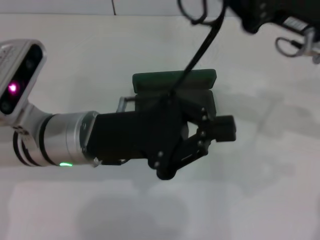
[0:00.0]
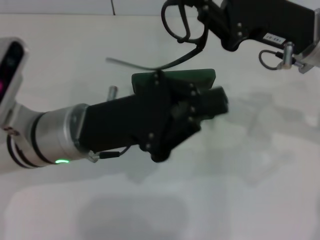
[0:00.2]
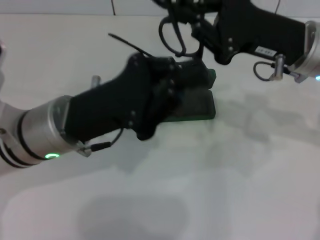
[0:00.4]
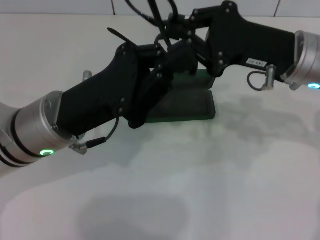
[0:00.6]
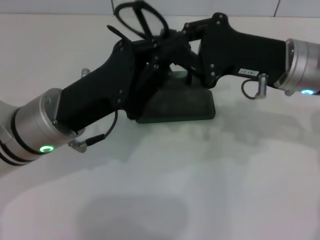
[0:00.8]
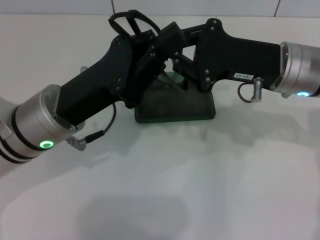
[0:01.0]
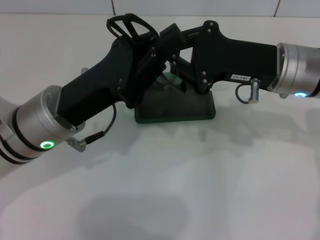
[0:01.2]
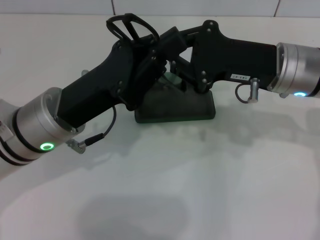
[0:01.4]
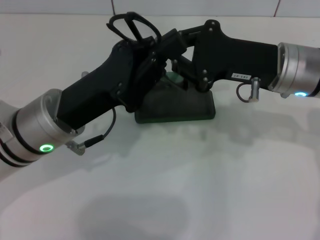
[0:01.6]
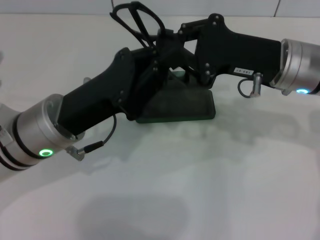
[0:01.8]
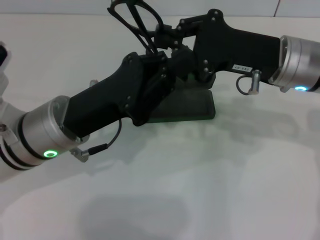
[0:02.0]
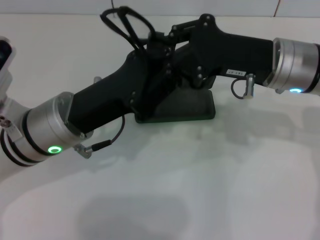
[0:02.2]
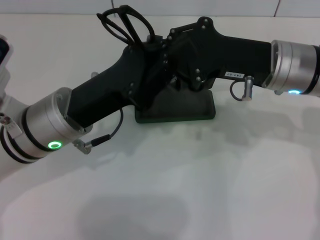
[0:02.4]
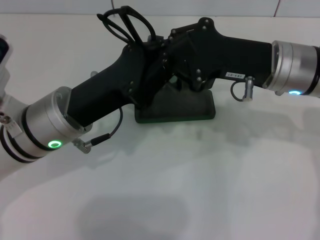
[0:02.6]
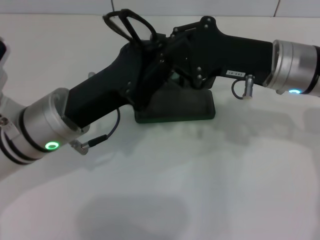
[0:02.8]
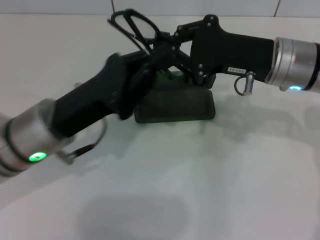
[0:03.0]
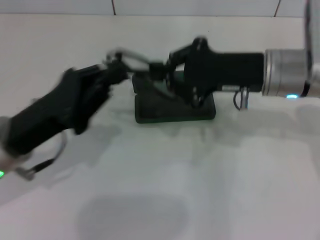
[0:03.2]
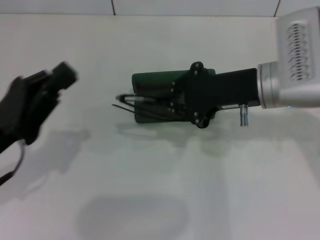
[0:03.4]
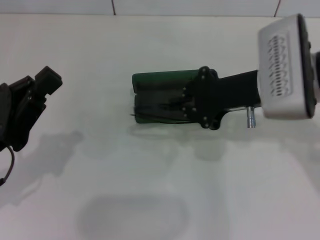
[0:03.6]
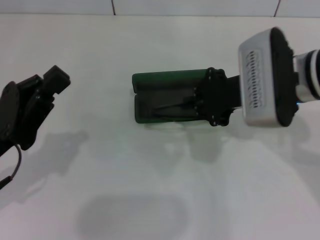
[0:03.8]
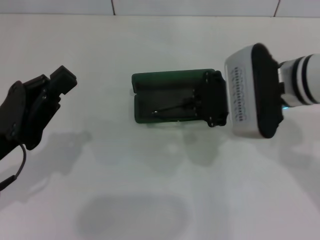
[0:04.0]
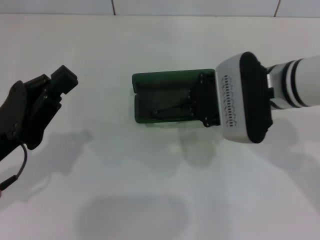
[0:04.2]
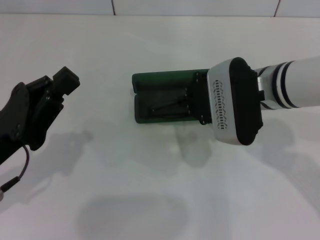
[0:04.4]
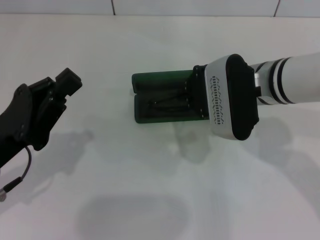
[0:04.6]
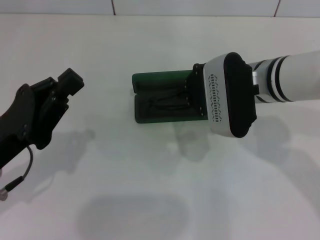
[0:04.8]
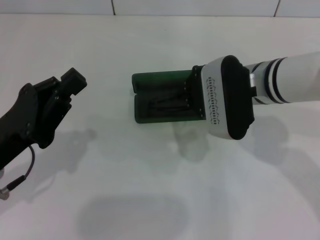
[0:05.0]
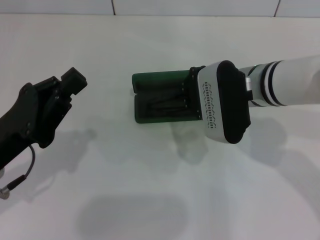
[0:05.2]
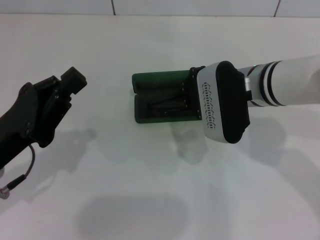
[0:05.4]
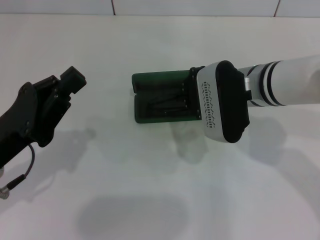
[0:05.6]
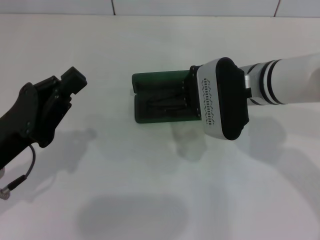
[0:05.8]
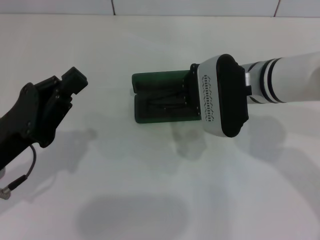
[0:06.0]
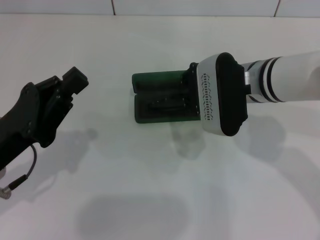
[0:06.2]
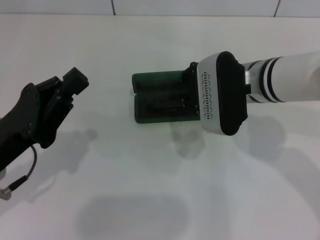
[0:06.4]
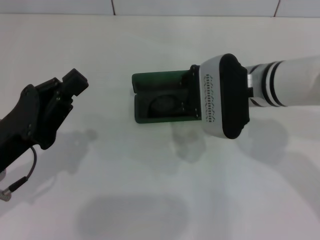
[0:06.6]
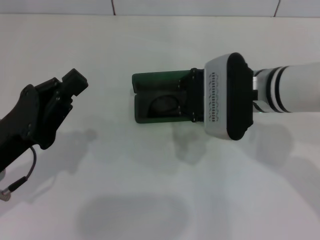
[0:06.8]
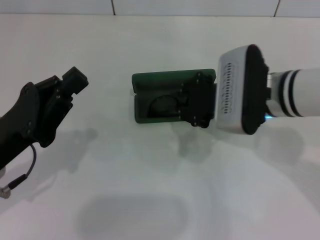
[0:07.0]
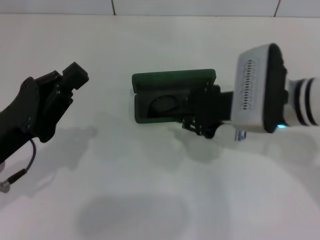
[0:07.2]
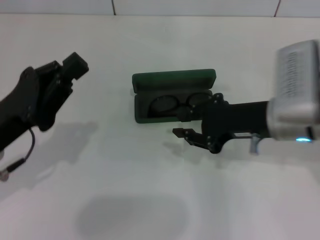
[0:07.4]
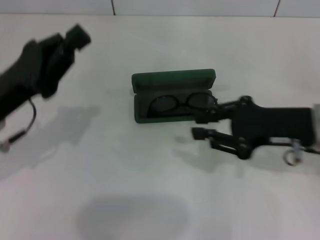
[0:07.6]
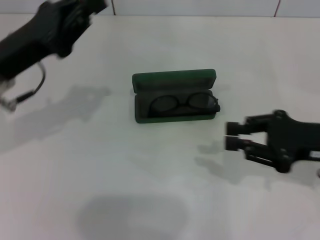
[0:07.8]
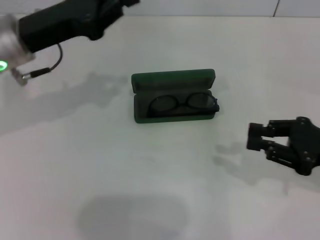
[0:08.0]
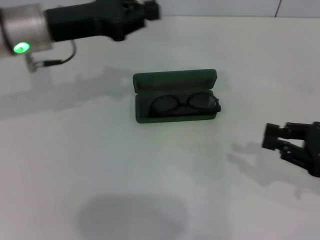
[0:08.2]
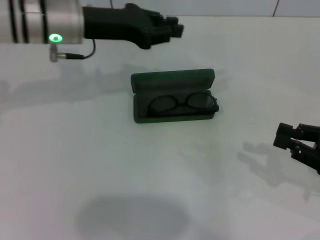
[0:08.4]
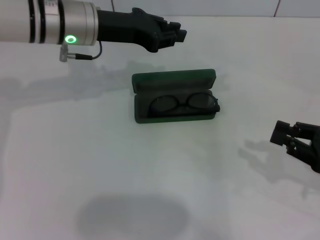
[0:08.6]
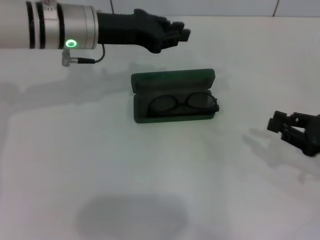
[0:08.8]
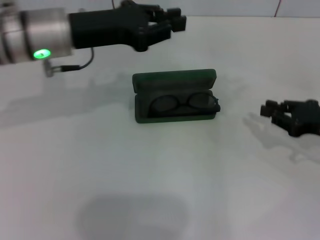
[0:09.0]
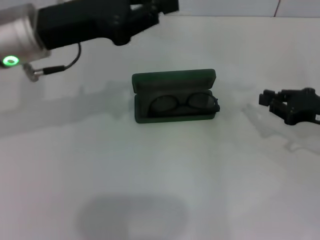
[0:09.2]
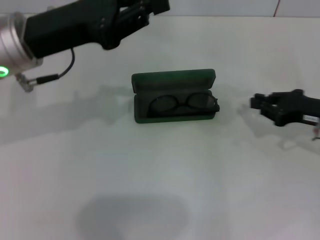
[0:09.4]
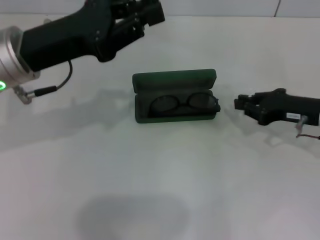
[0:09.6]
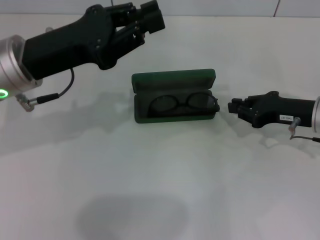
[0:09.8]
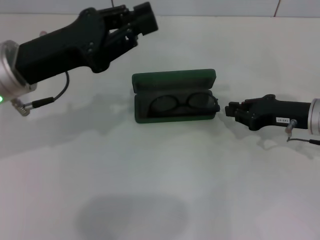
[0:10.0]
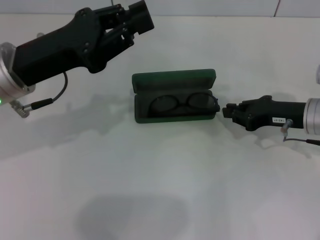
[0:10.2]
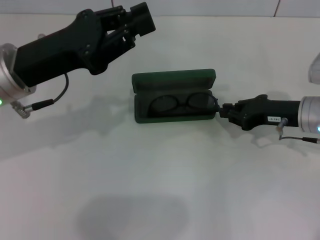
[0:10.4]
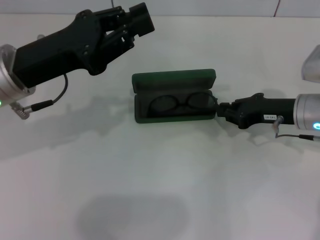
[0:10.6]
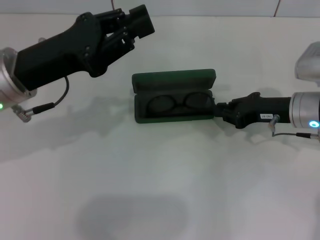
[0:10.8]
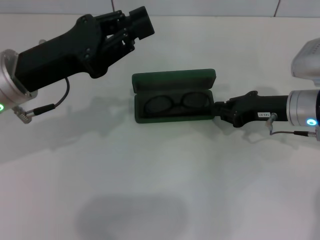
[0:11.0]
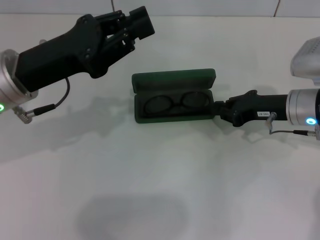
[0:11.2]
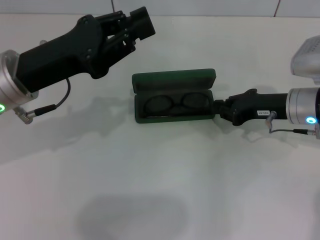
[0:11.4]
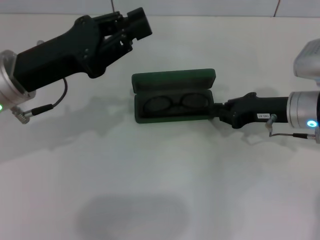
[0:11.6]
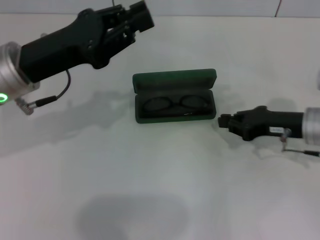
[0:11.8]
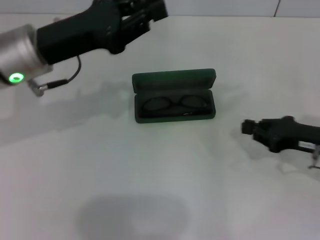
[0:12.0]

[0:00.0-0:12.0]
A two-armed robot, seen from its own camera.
Step, 0:01.8 to 0:06.6: Put the glasses into the case with your right hand.
0:00.0 to 0:01.6: The right gripper ends up roughly 5 cm from where it was.
0:01.6 to 0:03.0: The grippers move only a little.
0:03.0 to 0:04.4: The left gripper is displaced to the left and backward by some 10 cm.
0:04.4 to 0:06.0: The grippers make only small movements.
0:06.0 to 0:07.6: The right gripper is displaced to the right and backward by about 15 cm. Meanwhile the left gripper ends up approximately 5 cm from where it was.
0:07.6 to 0:09.0: The left gripper is displaced forward, to the right and upward by about 15 cm, while the right gripper is displaced to the right and downward by approximately 10 cm.
0:09.0 to 0:10.4: The right gripper travels to the left and forward by about 10 cm. Meanwhile the left gripper is displaced backward by about 5 cm.
0:10.4 to 0:12.0: The right gripper heads backward, covering about 5 cm.

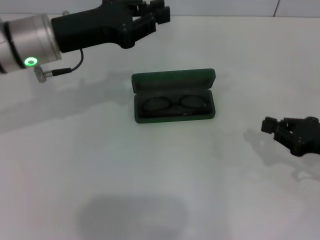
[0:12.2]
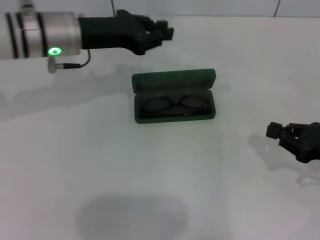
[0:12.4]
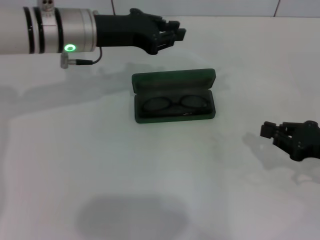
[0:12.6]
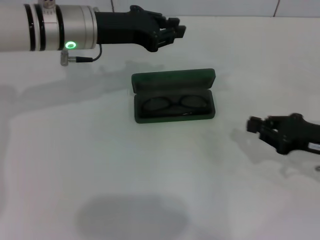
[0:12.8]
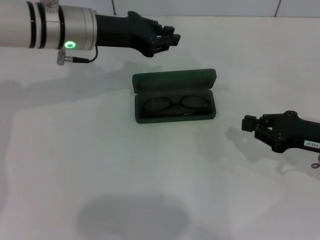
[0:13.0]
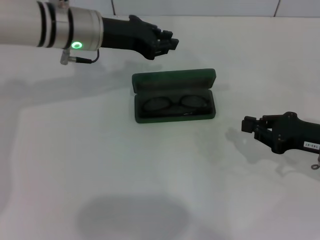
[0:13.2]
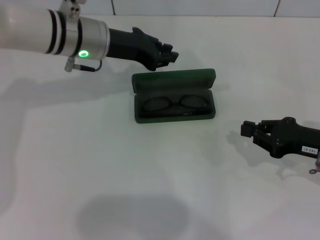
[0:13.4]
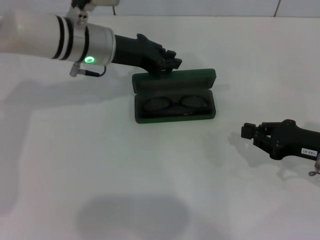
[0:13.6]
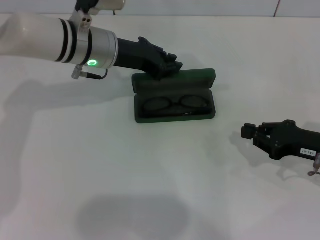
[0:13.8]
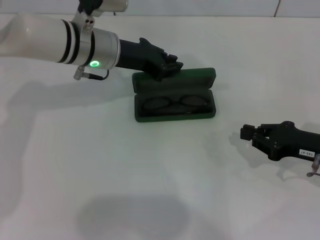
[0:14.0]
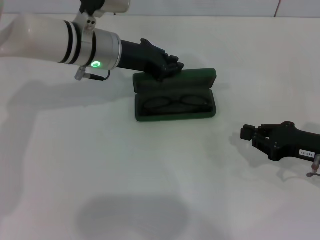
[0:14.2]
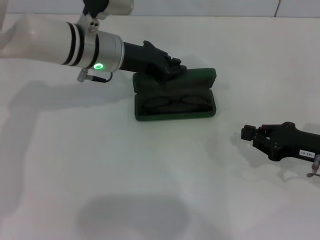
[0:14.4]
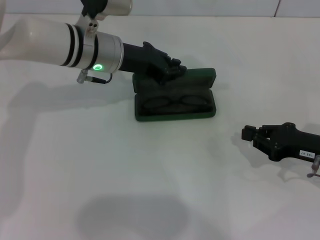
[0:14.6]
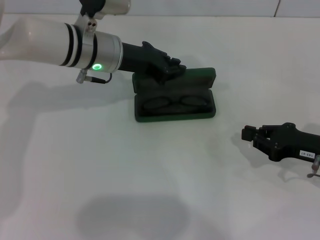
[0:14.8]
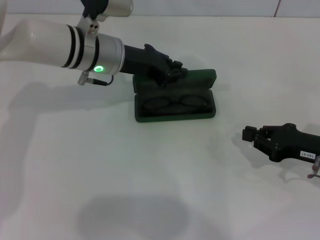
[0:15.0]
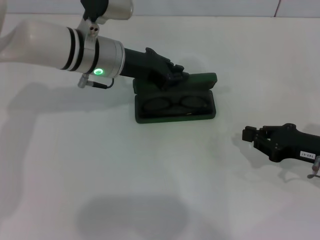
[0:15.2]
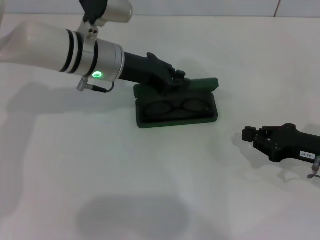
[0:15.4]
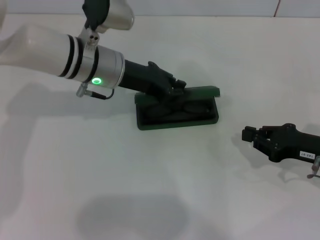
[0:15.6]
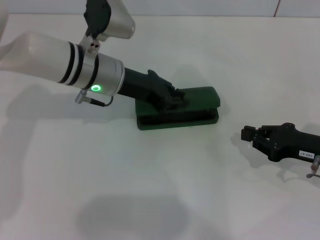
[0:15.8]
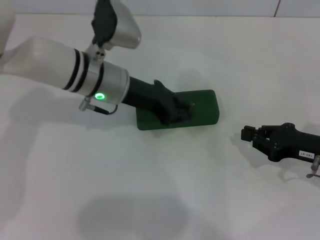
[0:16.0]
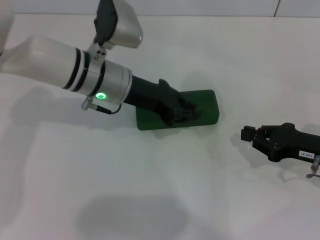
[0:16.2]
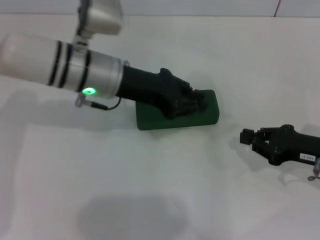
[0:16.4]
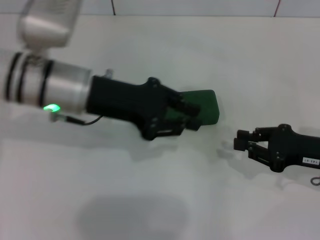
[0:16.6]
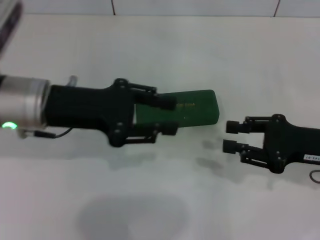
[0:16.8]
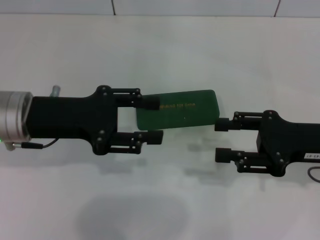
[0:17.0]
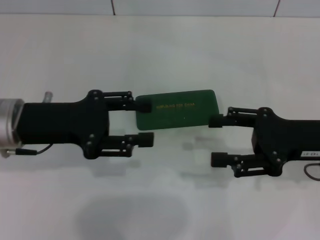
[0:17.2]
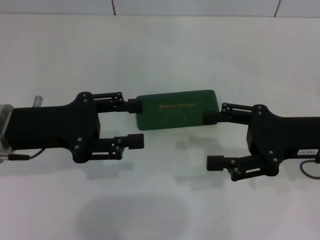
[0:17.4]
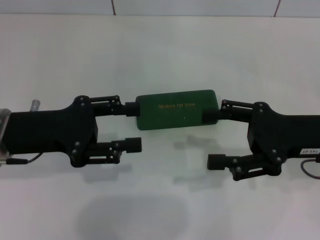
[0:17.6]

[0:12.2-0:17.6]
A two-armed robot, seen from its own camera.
Step, 0:12.2 to 0:15.8: Close the glasses case with your left hand.
0:12.2 to 0:13.6: The left gripper heads to the right and forward, covering approximately 10 cm.
0:13.6 to 0:16.2: The grippers stay close to where they were, moving slightly.
0:16.2 to 0:17.6: The left gripper shifts about 15 cm to the left and backward, and opens up. The right gripper moves upward, about 10 cm, and opens its fingers.
